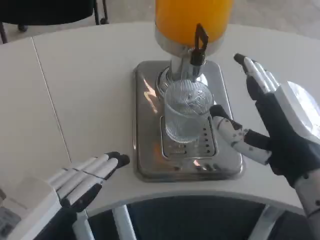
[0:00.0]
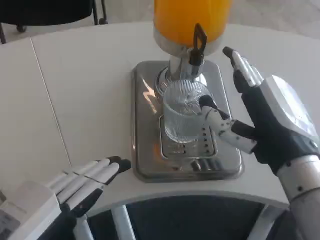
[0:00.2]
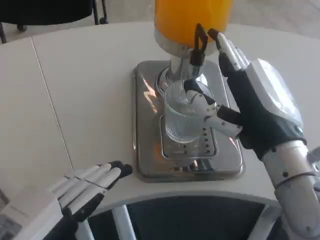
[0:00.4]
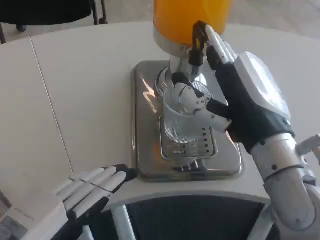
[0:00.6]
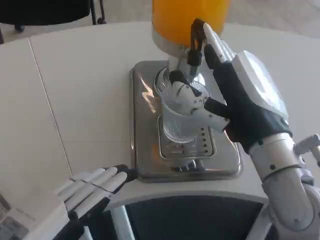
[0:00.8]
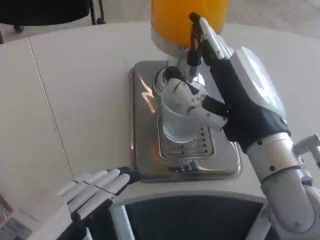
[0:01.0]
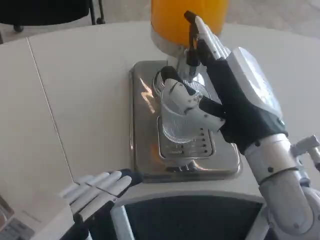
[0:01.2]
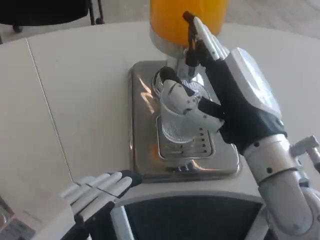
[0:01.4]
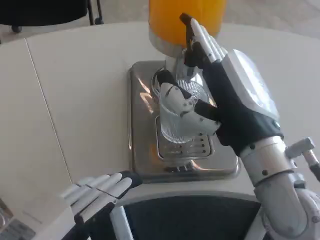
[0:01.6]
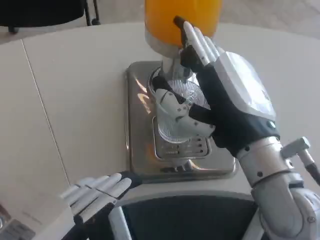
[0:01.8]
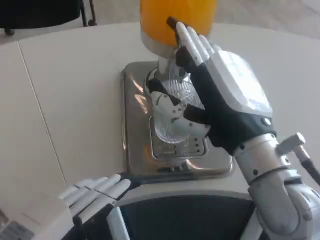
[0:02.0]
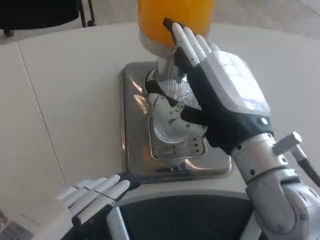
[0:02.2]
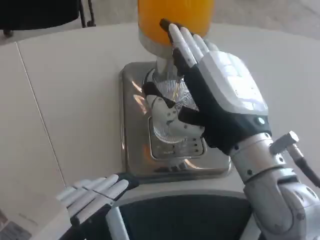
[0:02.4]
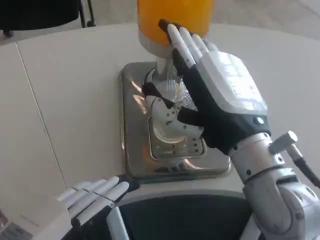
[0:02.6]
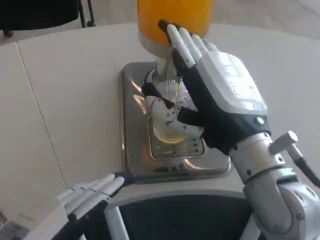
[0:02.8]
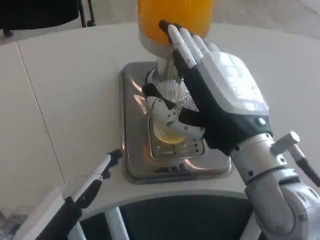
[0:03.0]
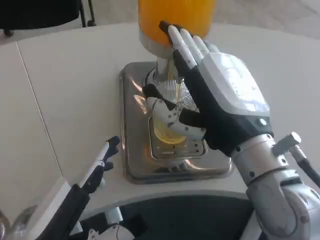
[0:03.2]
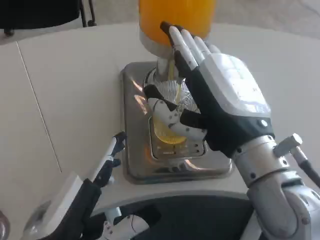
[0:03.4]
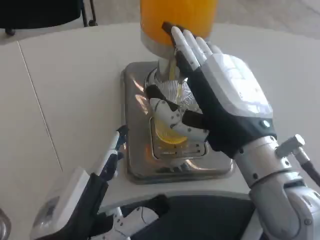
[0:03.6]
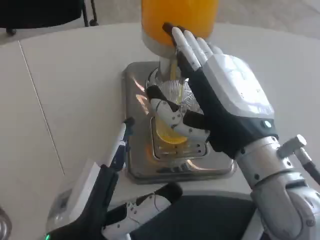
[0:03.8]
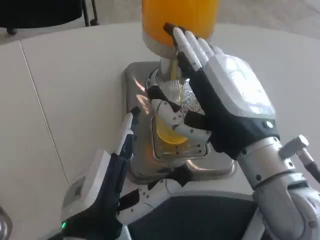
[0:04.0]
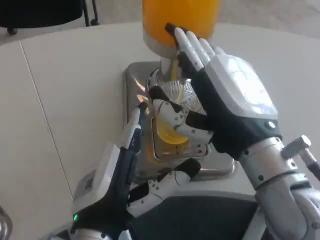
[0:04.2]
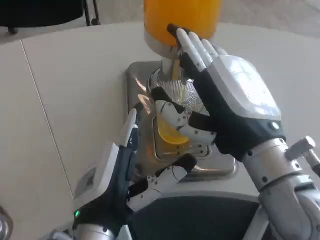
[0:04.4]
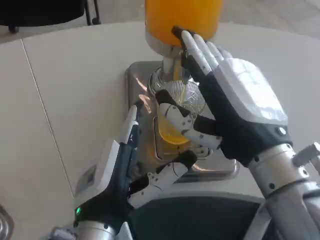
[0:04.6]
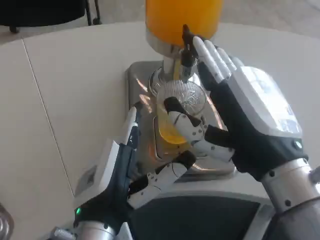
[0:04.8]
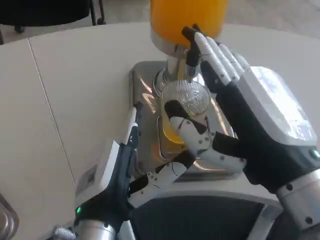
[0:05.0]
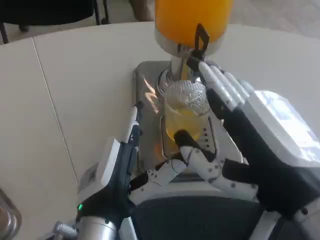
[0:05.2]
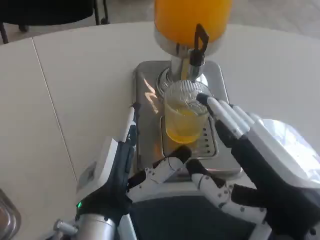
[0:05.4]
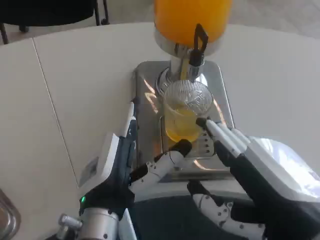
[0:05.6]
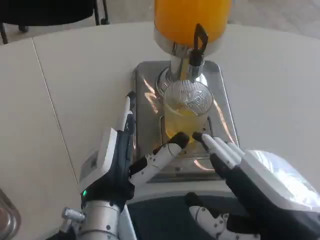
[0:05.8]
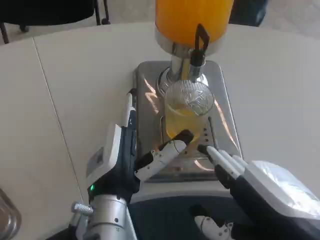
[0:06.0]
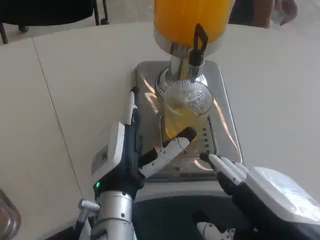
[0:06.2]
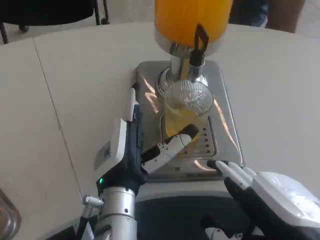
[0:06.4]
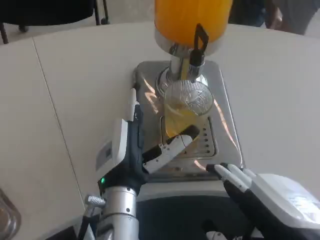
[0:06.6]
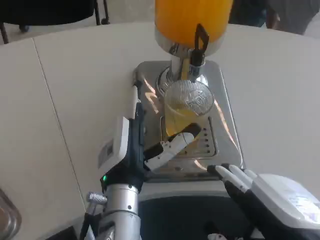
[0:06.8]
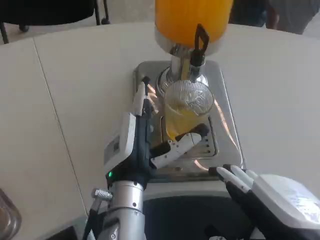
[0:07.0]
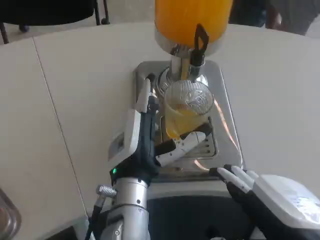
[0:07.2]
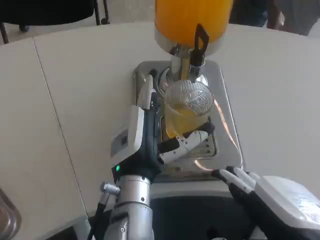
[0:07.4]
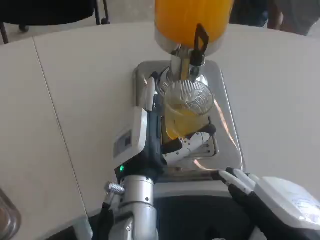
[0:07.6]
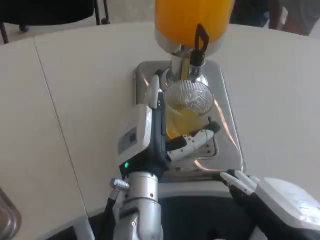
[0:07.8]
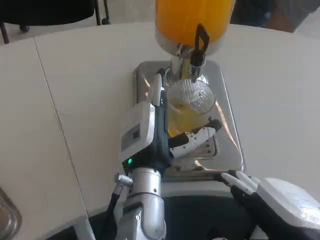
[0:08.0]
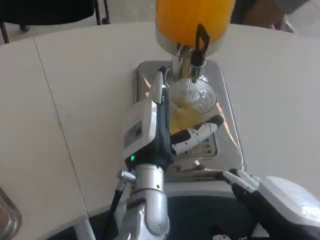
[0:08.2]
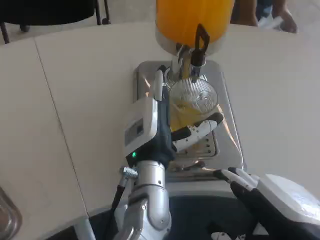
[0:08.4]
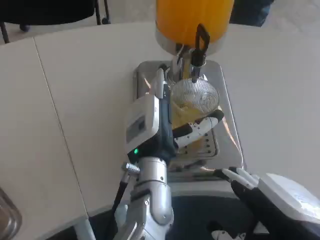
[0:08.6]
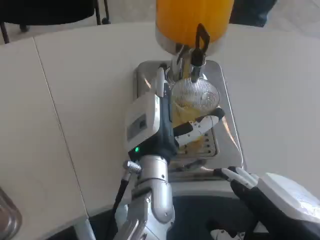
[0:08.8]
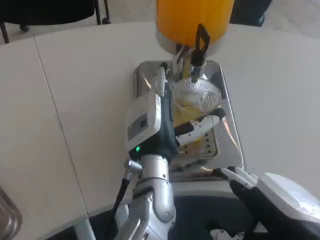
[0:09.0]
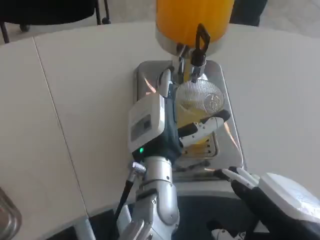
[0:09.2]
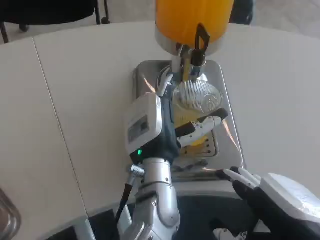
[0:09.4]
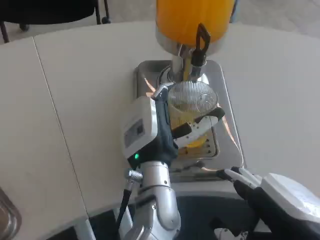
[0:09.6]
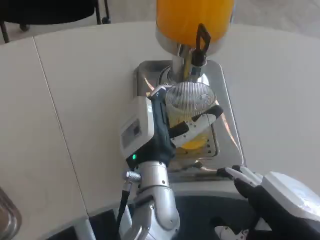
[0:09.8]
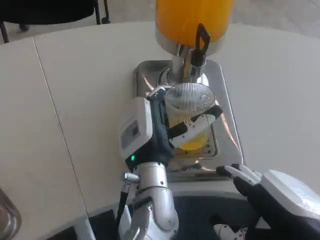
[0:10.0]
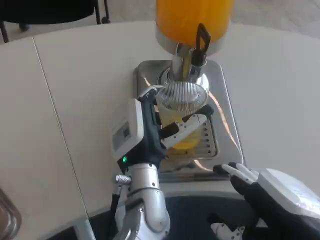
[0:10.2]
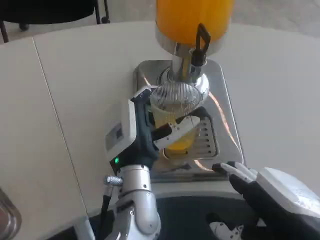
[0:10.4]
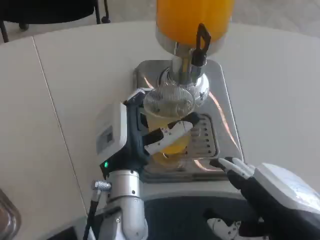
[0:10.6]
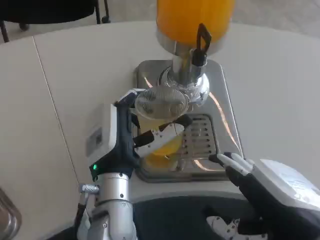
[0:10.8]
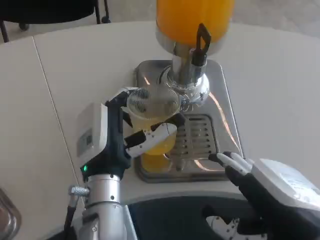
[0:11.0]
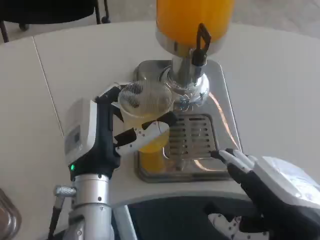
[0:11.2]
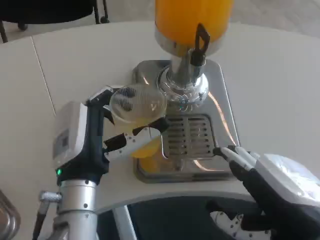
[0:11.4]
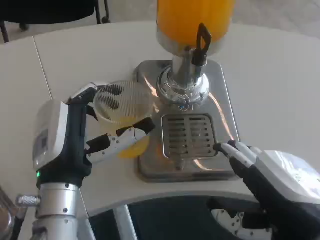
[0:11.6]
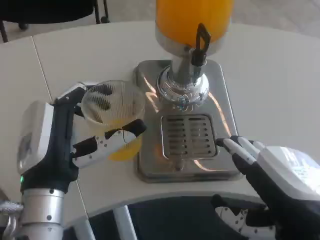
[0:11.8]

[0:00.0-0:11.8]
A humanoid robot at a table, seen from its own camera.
Task of the whole recording: Grasp the cup under the faucet to collect the drink, then remove the cup.
0:00.0 to 0:01.4: The right hand shifts by about 5 cm.
0:03.0 to 0:04.4: The left hand is displaced to the right and forward by about 15 cm.
0:04.4 to 0:06.0: The left hand goes some 5 cm forward. Meanwhile the right hand moves backward, approximately 10 cm.
0:06.0 to 0:07.4: The hands move only a little.
0:07.4 to 0:10.4: The hands make only small movements.
0:10.4 to 0:11.8: The left hand shifts about 15 cm to the left and backward.

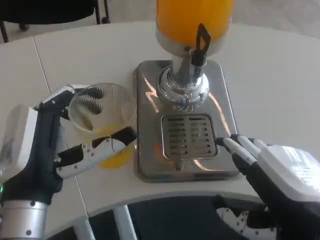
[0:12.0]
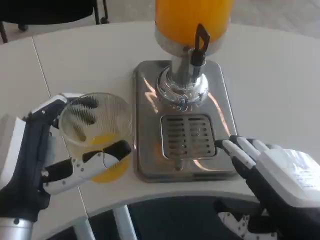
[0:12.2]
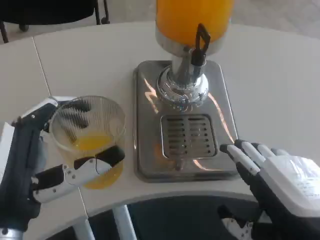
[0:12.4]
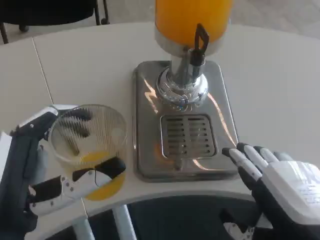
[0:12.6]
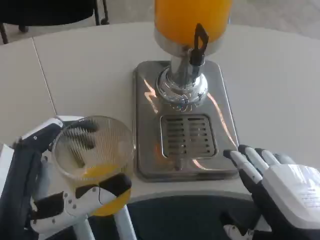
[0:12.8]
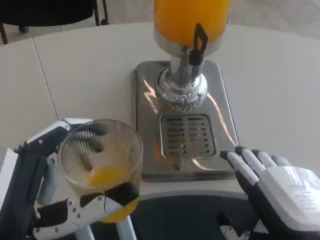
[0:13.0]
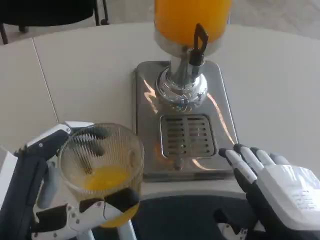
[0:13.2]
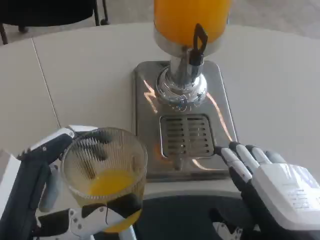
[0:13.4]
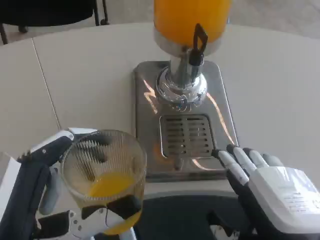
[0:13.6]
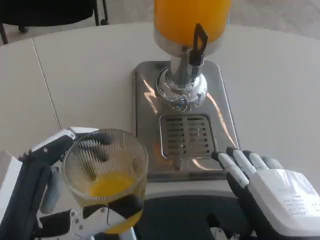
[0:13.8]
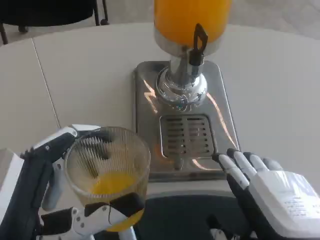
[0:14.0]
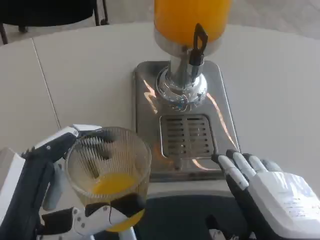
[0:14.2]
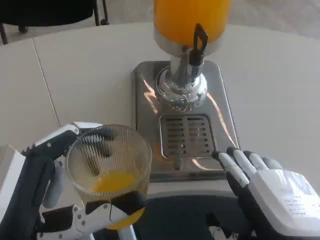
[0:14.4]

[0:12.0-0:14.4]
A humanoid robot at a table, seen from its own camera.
Task of the whole recording: Grasp the cup under the faucet to collect the drink, then remove the cup.
0:12.0 to 0:13.2: The left hand goes about 10 cm backward.
0:13.2 to 0:14.4: Both hands stay put.

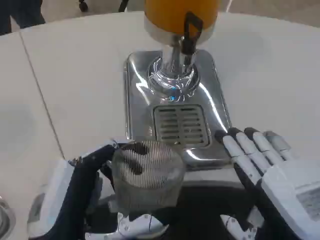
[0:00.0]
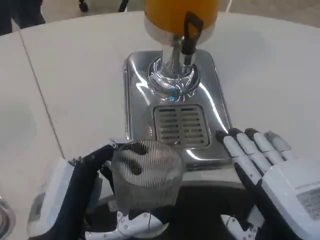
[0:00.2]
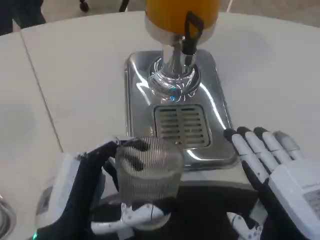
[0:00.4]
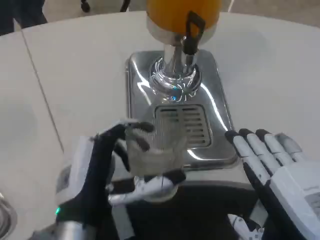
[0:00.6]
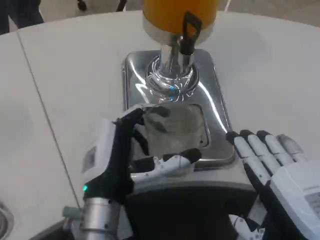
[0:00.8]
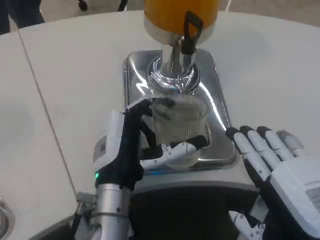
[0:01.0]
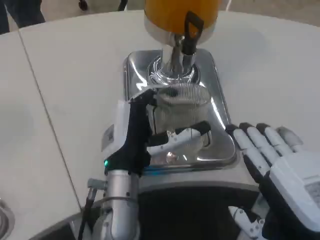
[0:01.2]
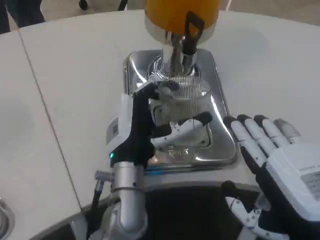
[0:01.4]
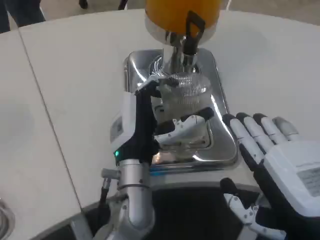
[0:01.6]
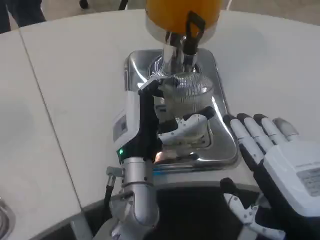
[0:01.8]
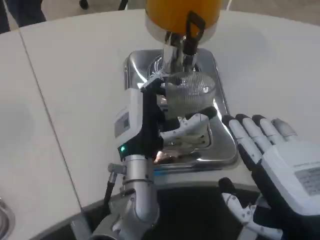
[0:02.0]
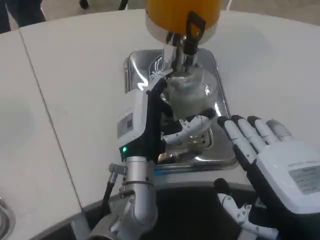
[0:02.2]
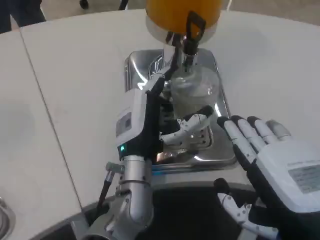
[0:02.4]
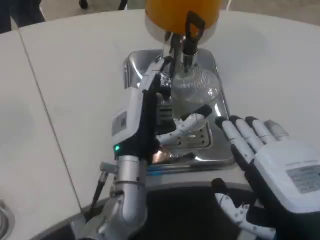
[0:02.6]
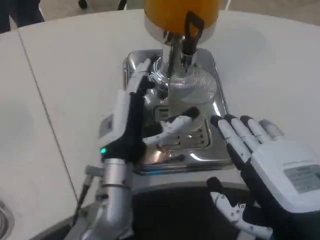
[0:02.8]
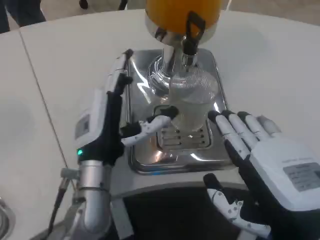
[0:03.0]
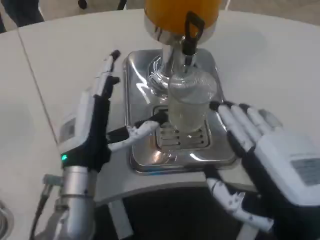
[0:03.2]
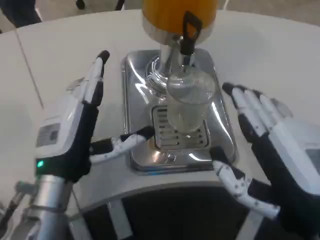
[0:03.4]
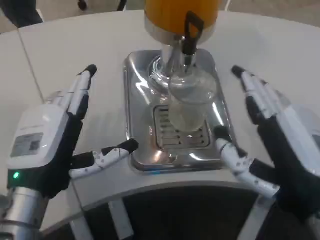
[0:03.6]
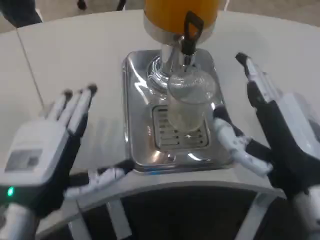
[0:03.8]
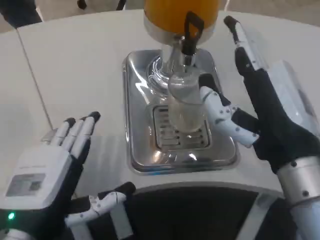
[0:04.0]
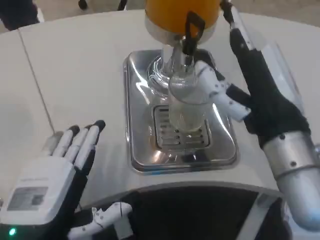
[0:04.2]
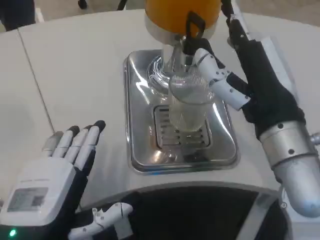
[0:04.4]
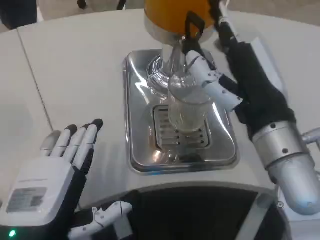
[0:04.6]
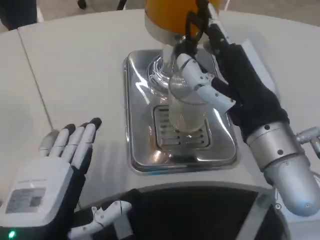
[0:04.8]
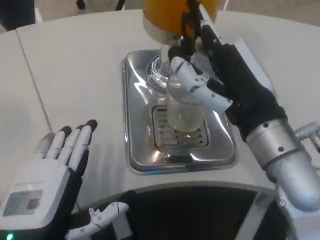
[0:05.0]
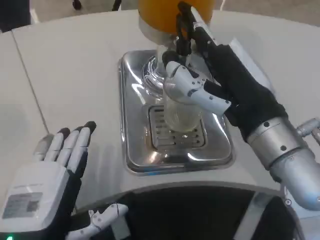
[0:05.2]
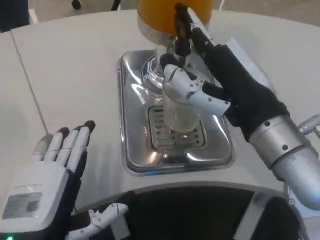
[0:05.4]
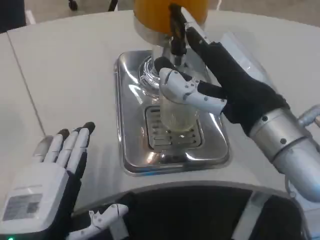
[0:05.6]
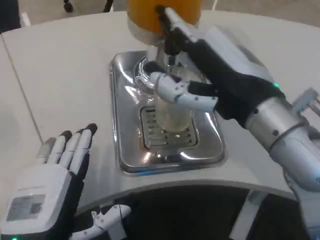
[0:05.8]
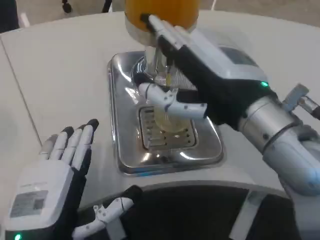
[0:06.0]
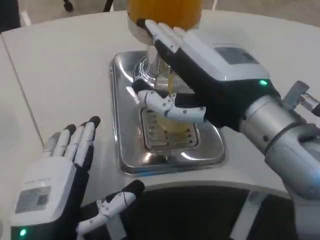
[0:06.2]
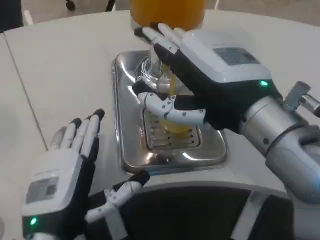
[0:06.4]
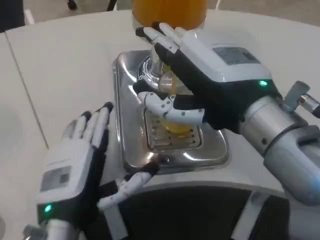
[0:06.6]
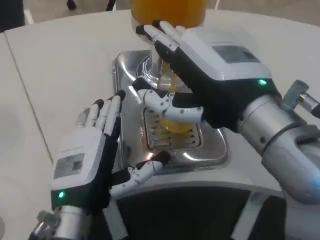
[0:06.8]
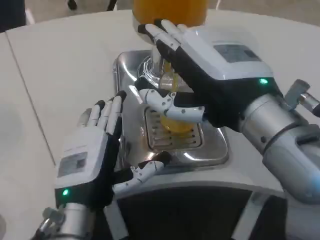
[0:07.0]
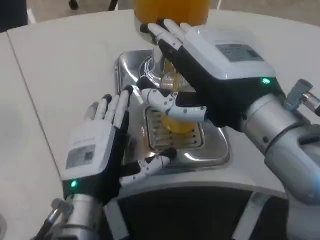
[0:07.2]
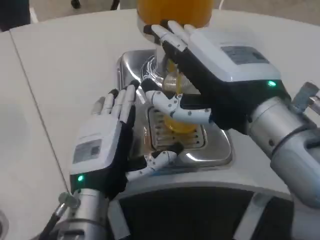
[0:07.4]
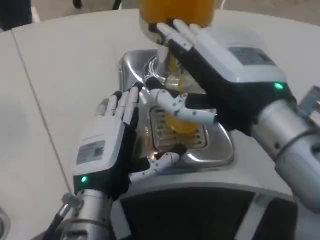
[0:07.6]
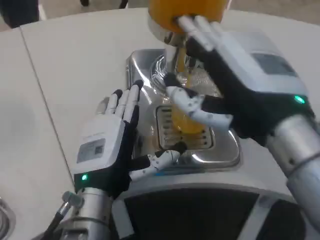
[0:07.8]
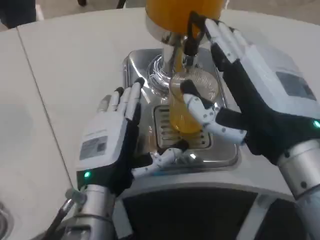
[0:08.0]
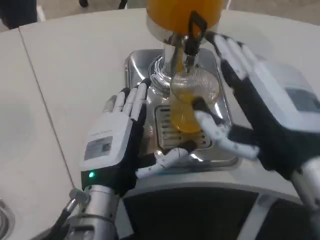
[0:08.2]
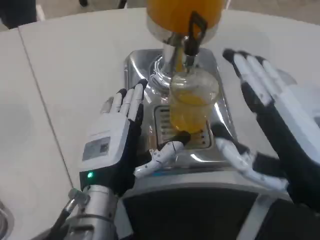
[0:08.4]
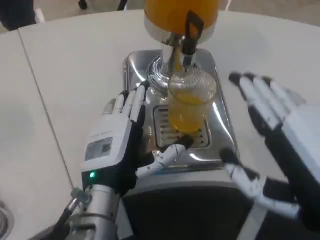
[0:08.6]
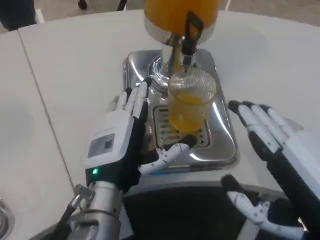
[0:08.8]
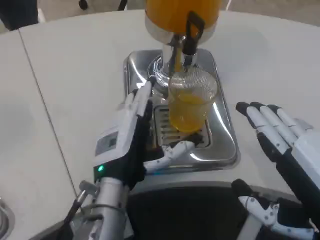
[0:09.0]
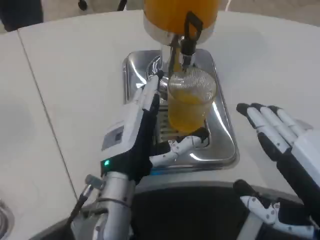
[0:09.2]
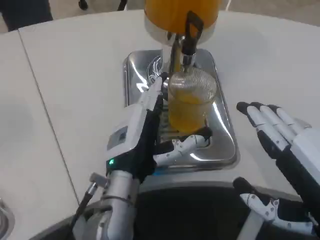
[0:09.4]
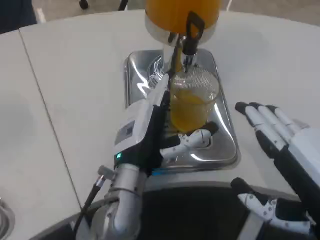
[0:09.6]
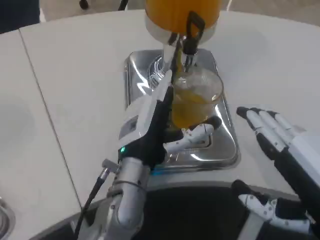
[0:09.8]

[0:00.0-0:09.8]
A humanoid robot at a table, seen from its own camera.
Task of the whole recording: Grasp the cup under the faucet to collect the drink, then remove the cup.
0:00.0 to 0:01.4: The left hand moves forward and to the right, about 20 cm.
0:01.4 to 0:02.8: The hands stay close to where they were, moving slightly.
0:02.8 to 0:04.2: The left hand is displaced backward and to the left by roughly 20 cm. Meanwhile the right hand travels forward by some 10 cm.
0:05.6 to 0:07.0: The left hand shifts some 10 cm forward.
0:07.0 to 0:08.4: The right hand is displaced downward, to the right and backward by approximately 10 cm.
0:08.4 to 0:09.8: The left hand ends up about 5 cm from where it was.
